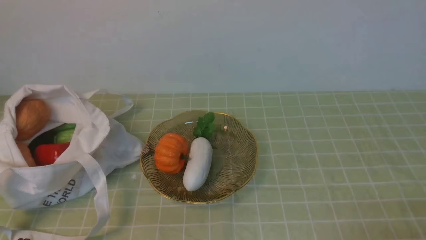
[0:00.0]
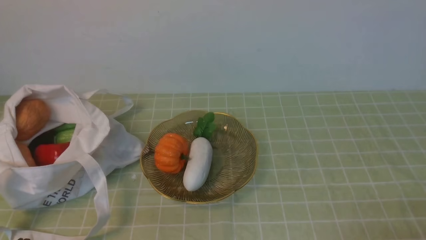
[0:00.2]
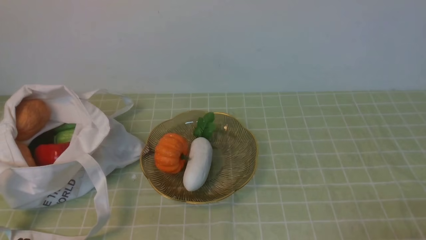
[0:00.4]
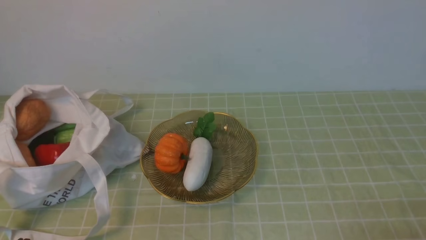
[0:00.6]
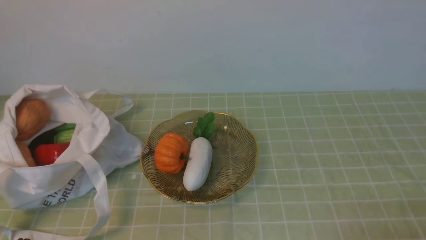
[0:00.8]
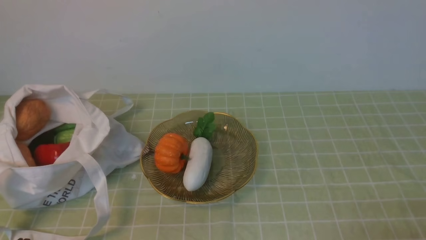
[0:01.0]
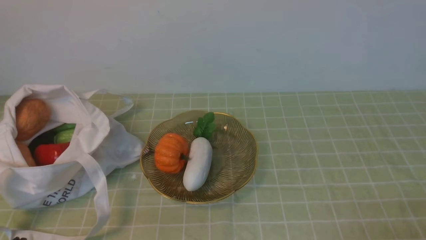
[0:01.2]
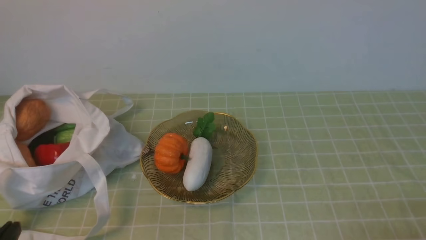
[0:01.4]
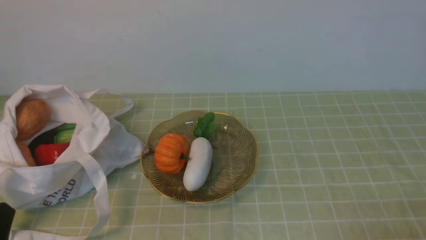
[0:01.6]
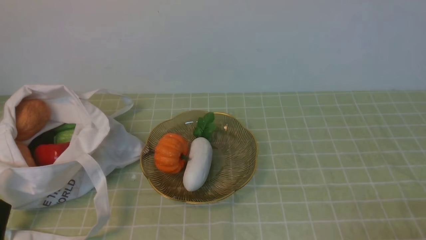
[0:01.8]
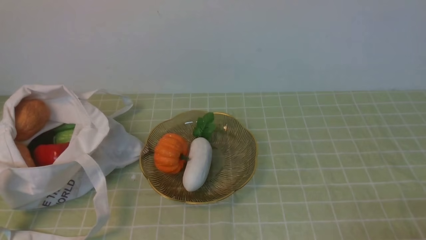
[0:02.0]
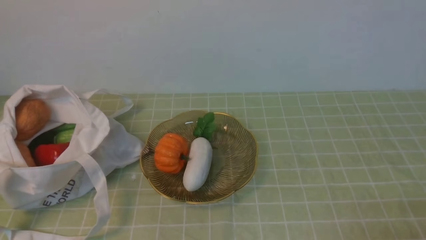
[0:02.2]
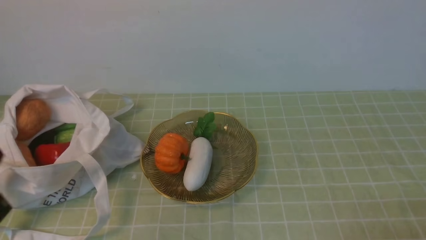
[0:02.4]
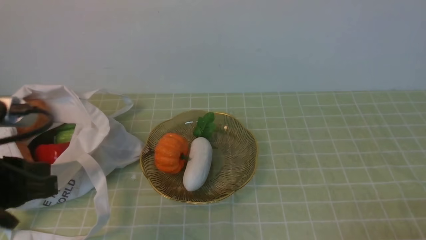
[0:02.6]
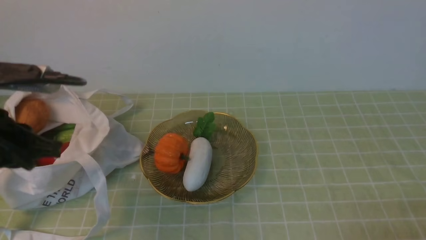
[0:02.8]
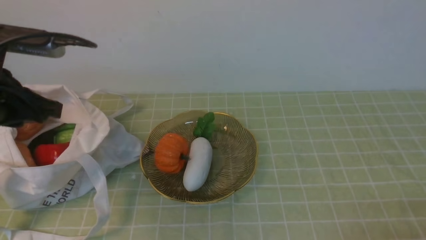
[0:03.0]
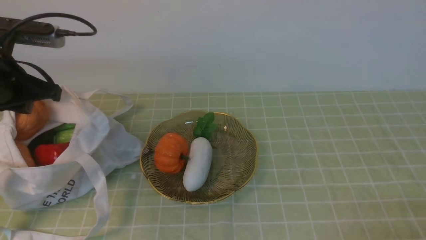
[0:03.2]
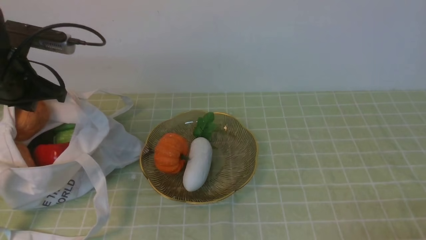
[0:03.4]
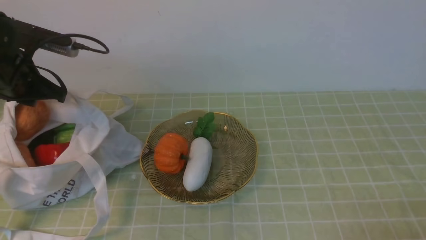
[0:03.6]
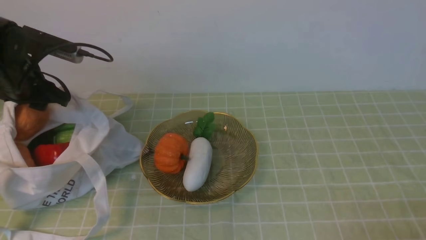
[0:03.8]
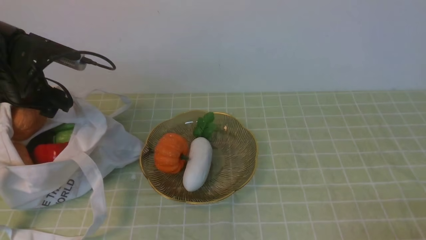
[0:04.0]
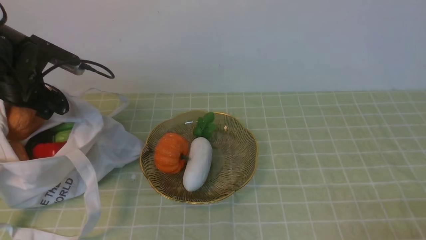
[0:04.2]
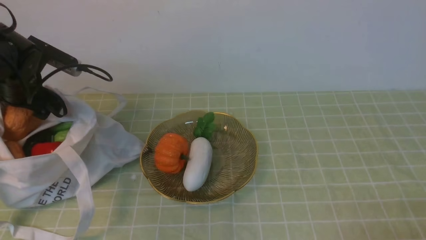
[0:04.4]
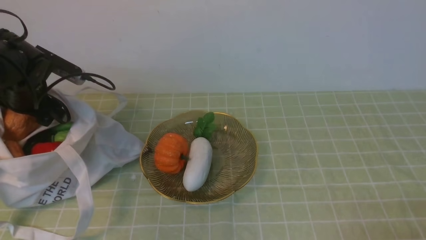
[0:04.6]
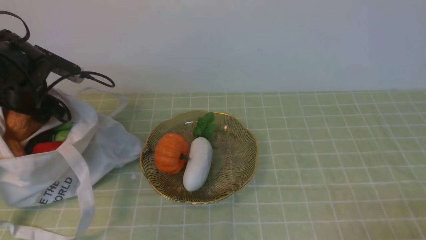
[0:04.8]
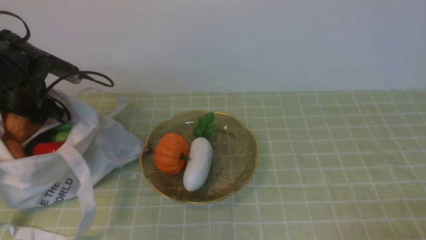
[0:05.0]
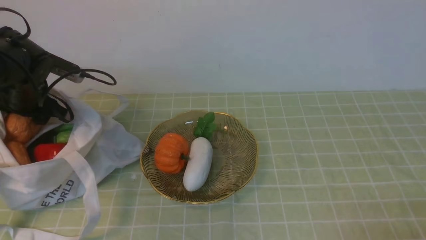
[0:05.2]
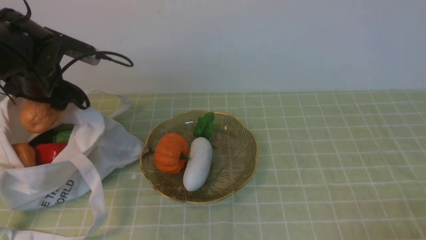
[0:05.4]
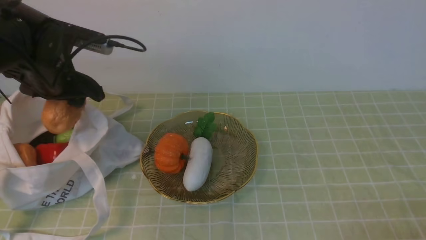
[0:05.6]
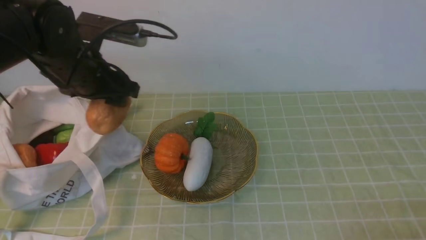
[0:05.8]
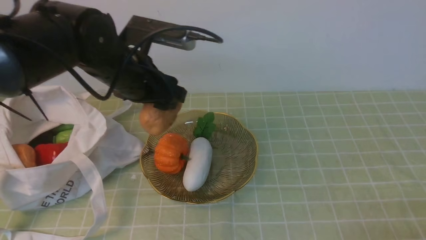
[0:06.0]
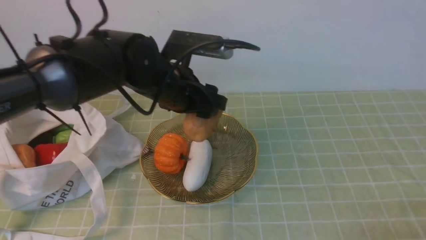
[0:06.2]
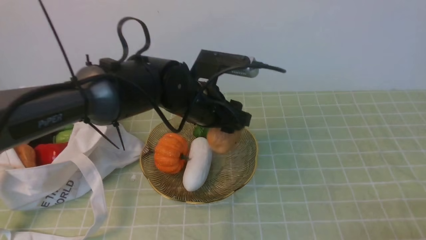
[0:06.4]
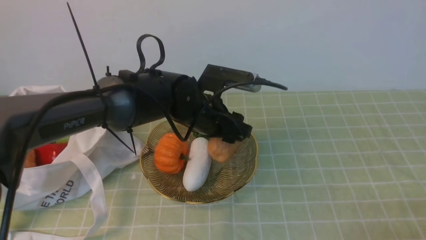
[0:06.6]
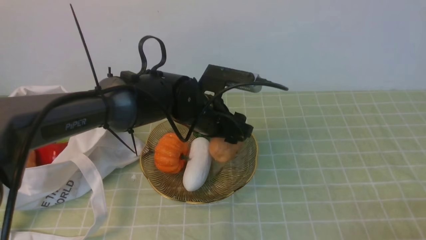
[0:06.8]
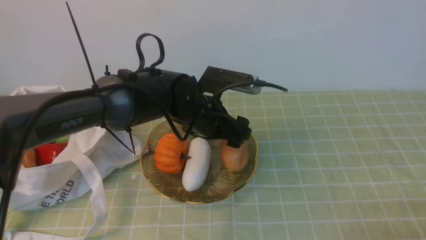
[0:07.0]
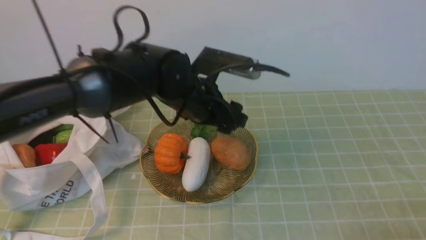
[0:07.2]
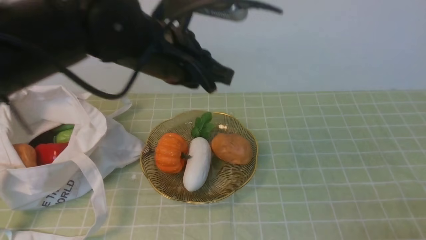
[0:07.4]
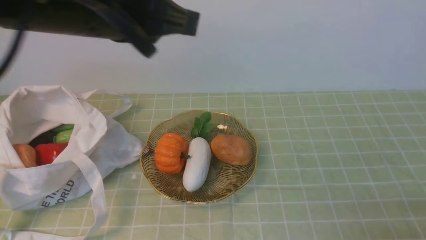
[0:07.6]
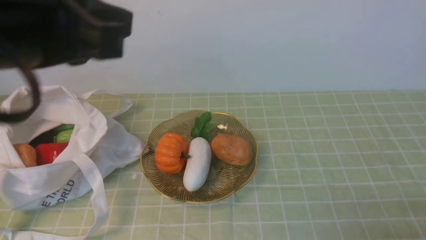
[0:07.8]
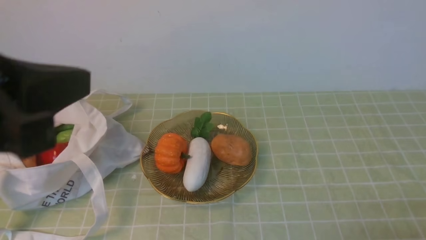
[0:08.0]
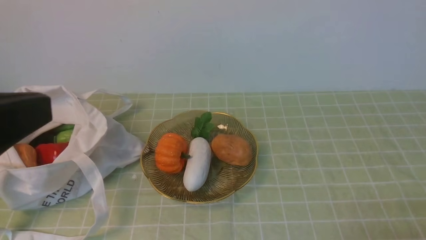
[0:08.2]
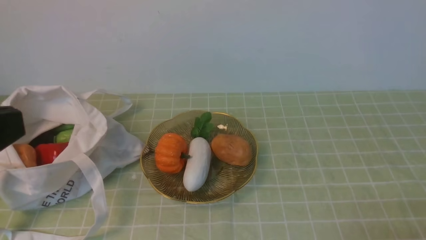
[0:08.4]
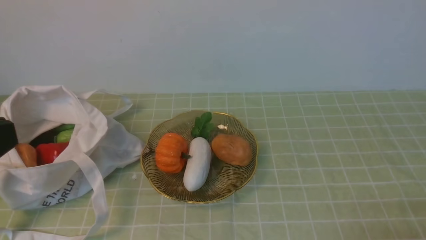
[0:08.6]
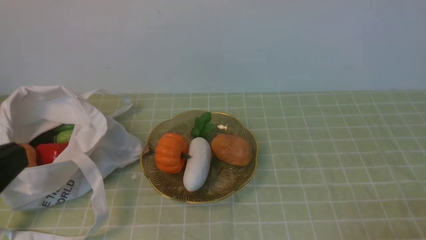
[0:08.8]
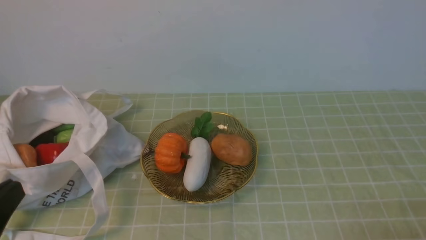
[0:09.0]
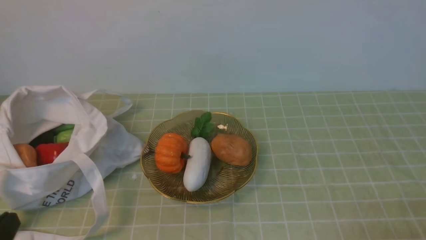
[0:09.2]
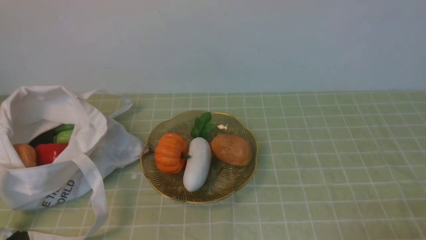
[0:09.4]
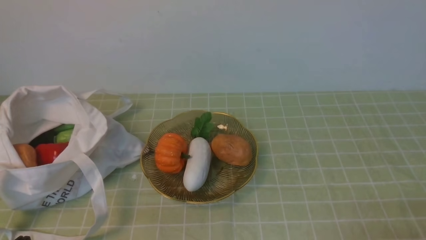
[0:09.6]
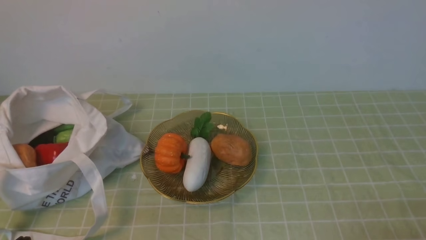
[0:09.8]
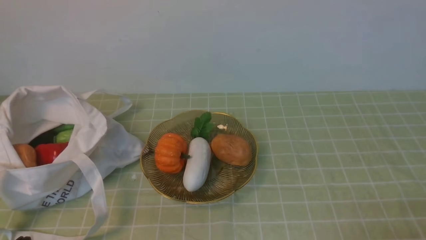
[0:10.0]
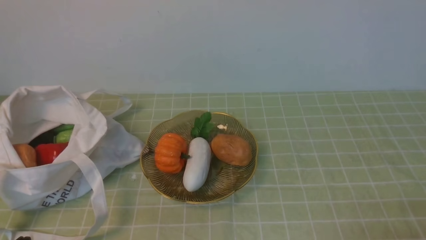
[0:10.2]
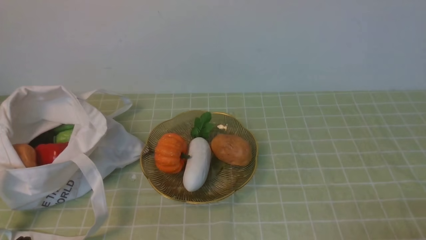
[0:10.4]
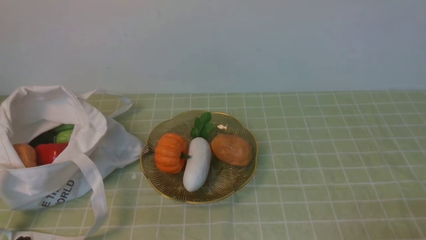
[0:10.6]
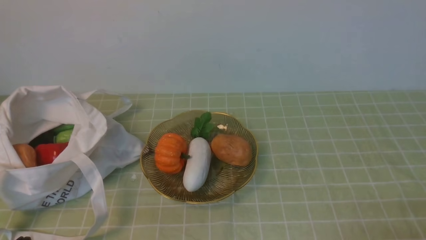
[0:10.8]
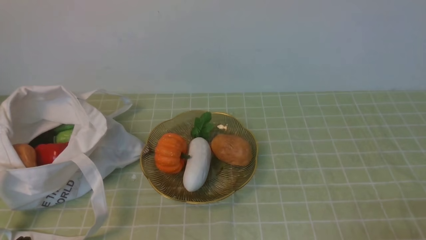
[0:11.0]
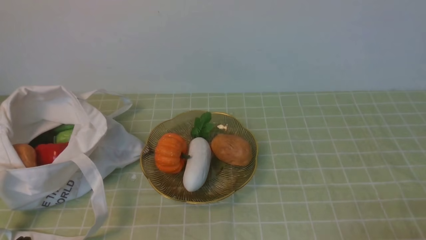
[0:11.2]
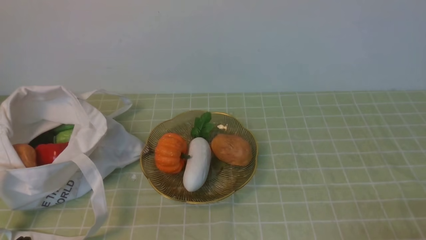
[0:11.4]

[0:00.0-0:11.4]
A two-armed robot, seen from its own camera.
Task of the whole recording: take vegetables from bag on green coffee tablecloth place on plate.
Step, 0:00.0 to 0:04.8: Grasp the potato with left gripper.
Step, 0:05.0 to 0:07.0: Place the potato on the plate with left gripper.
0:01.4 to 0:02.8: The left gripper goes about 20 cm upward and forward.
0:02.8 to 0:04.2: The left gripper shifts approximately 20 cm forward, and opens.
0:04.2 to 0:05.6: The left gripper heads to the right, covering roughly 5 cm.
0:05.6 to 0:07.2: The left gripper travels to the right by approximately 20 cm.
0:07.2 to 0:08.6: The left gripper goes some 35 cm backward, to the left and upward, and closes up.
0:10.0 to 0:11.4: Both grippers stay about where they are.
